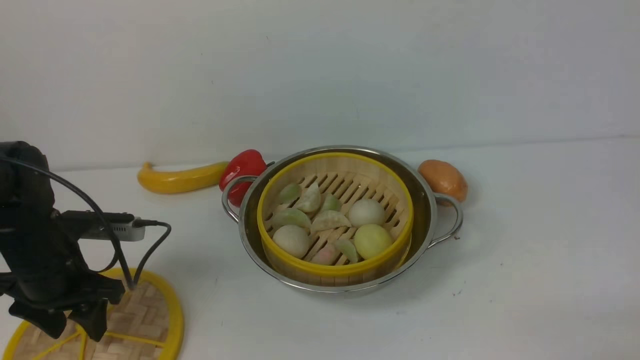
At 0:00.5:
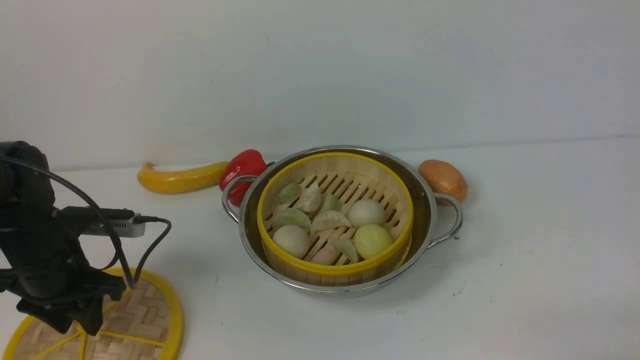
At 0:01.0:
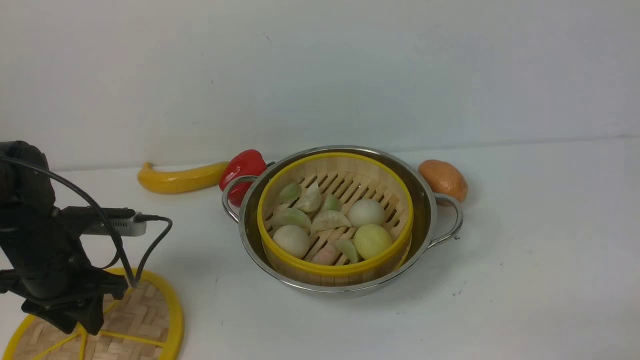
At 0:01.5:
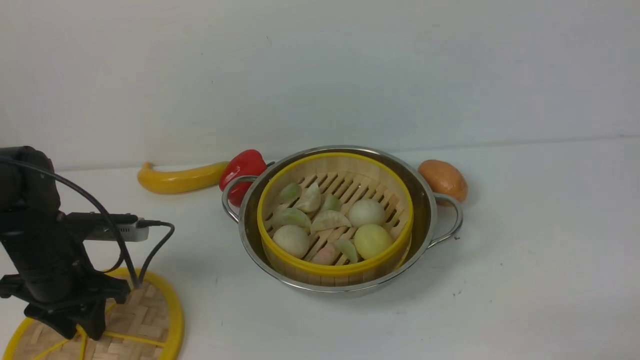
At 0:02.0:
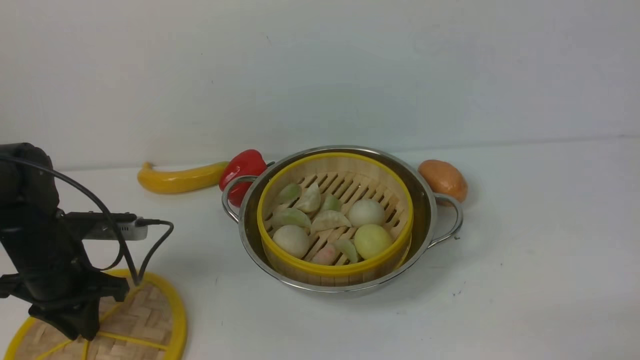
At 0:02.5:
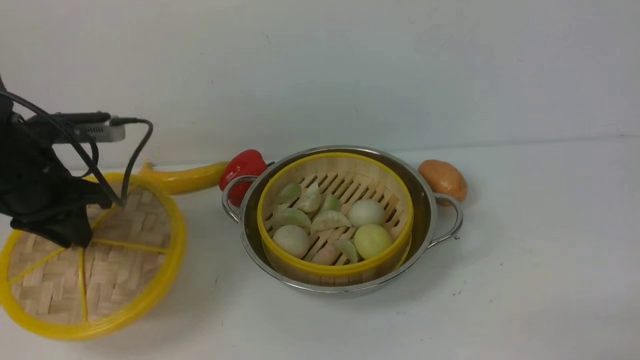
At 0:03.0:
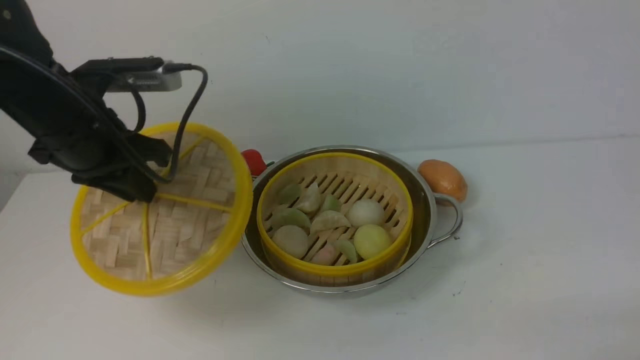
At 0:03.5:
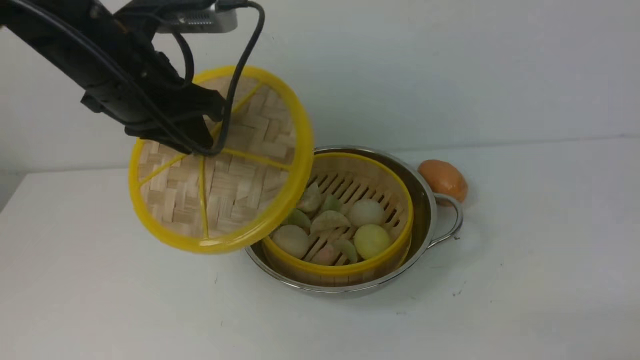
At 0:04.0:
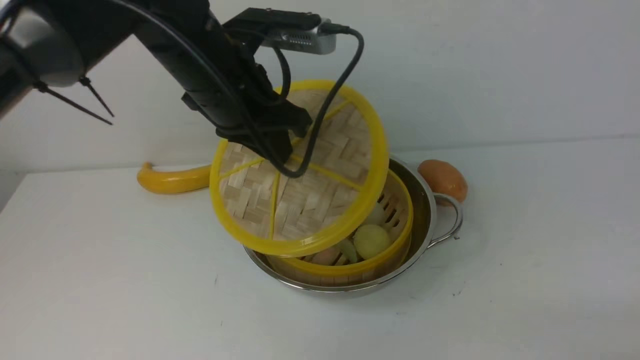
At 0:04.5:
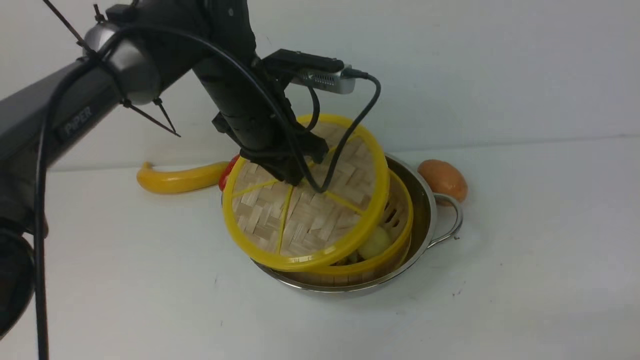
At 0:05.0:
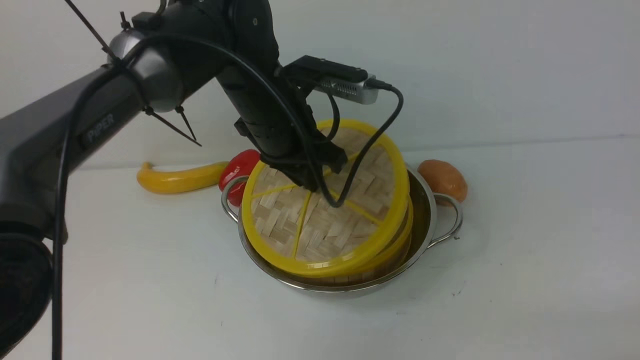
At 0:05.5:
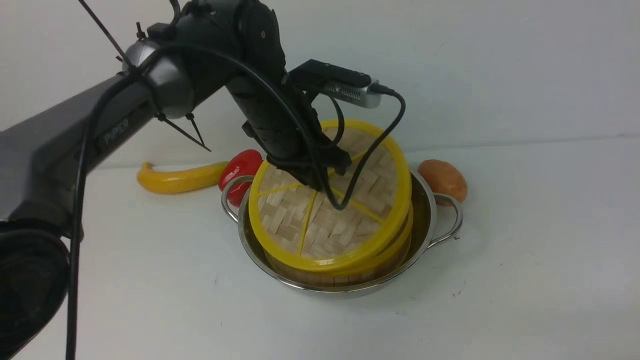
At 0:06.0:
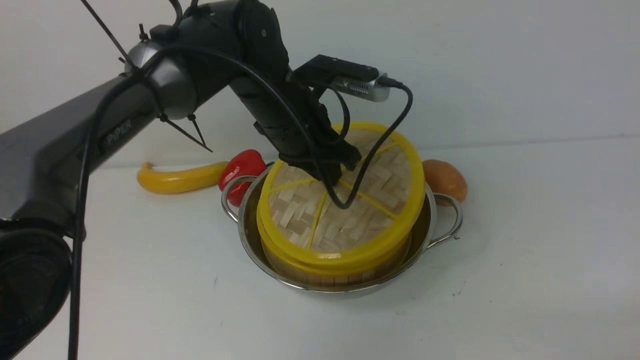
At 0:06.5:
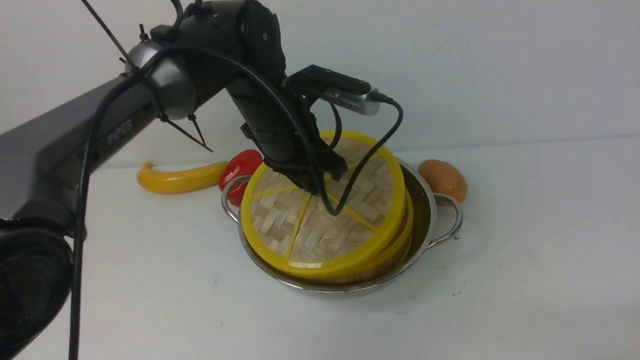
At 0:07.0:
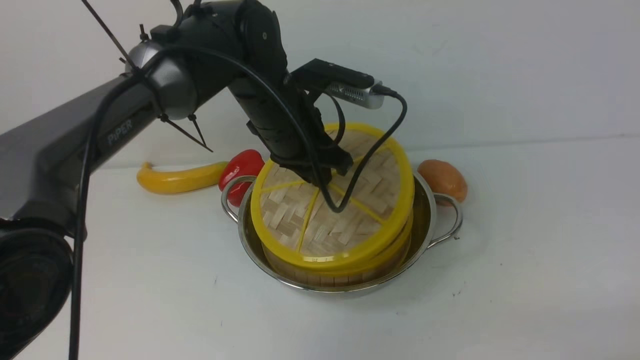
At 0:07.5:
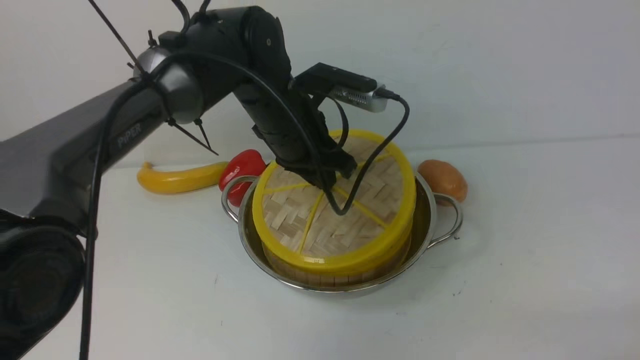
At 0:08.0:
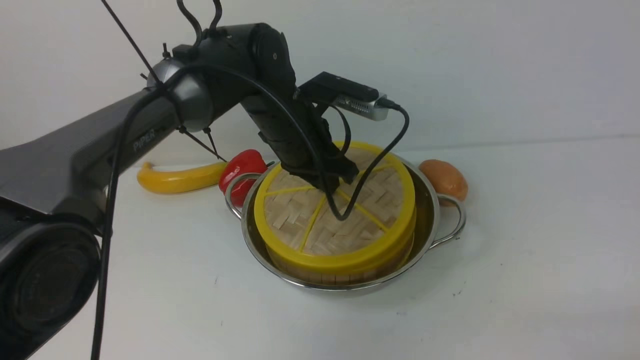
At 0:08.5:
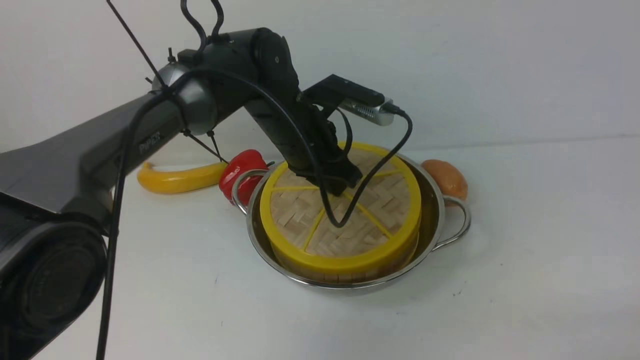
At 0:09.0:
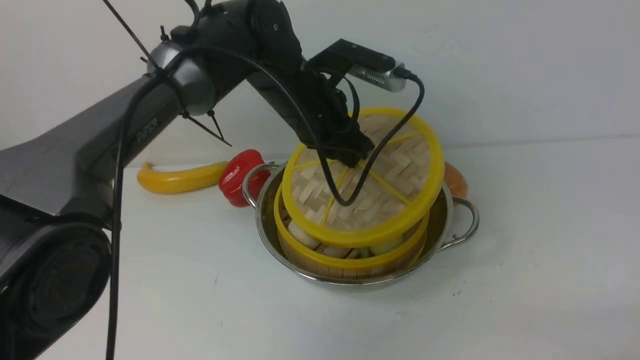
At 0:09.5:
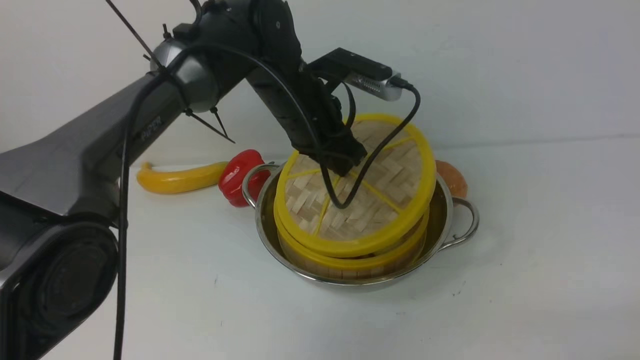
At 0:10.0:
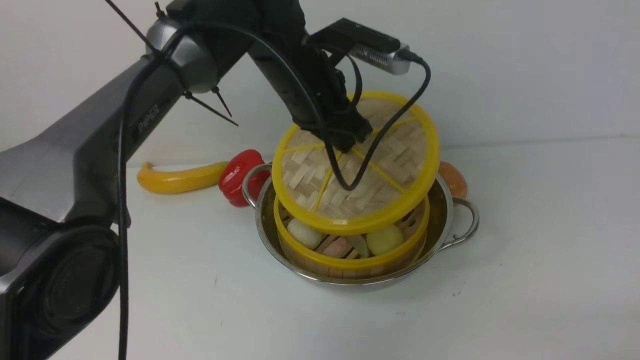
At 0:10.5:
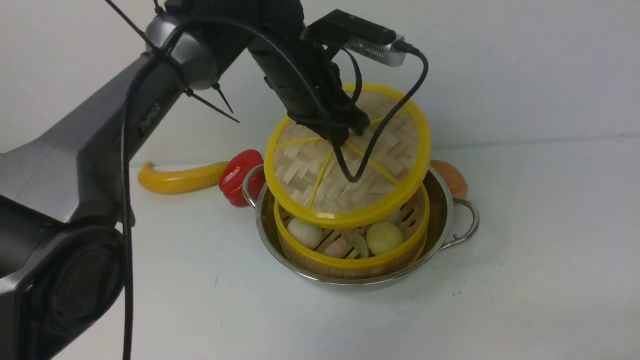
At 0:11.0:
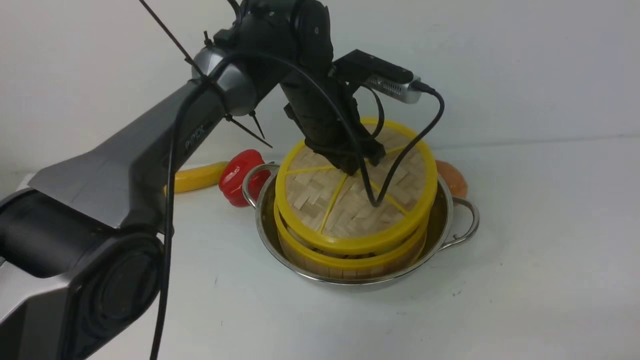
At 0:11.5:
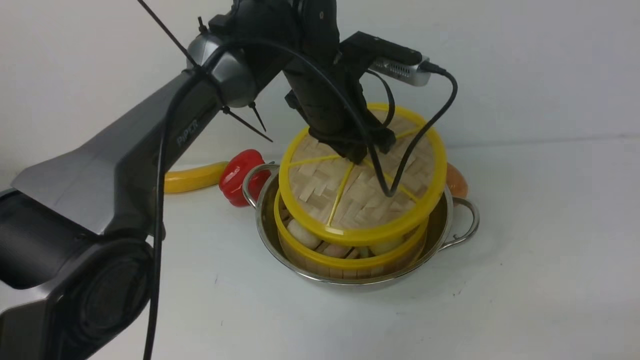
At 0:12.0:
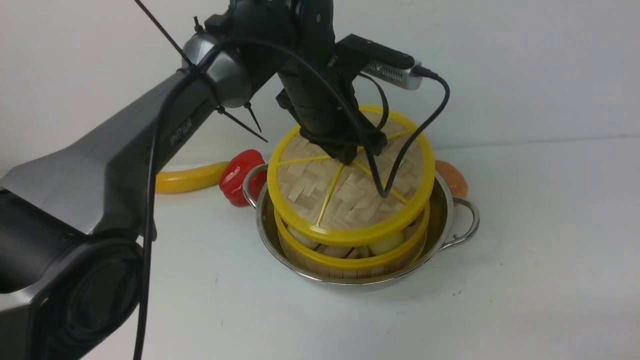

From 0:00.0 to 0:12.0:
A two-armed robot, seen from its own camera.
Task of the whole recording: place the steamer in the pot on the white table, and put the lid on the steamer.
Step, from 0:00.0 to 0:02.0: use the left arm to lift the lid of the steamer.
From 0:00.0 to 0:02.0: The left gripper closes up.
From 0:02.0 to 0:04.0: The left gripper is displaced to the right and upward by approximately 25 cm.
From 0:04.0 to 0:06.0: The left gripper goes some 5 cm downward.
From 0:06.0 to 0:08.0: The grippers make only small movements.
From 0:08.0 to 0:10.0: The left gripper goes roughly 5 cm upward.
From 0:10.0 to 0:12.0: There are only small adjustments of the grippers.

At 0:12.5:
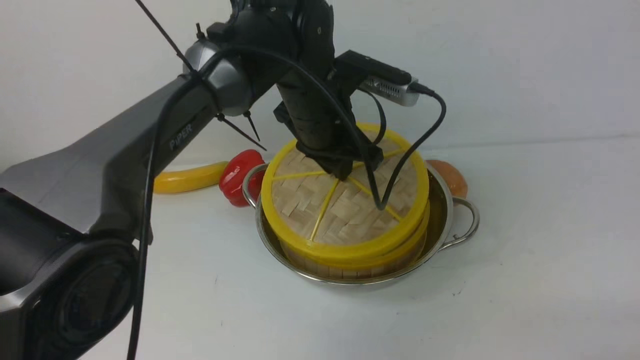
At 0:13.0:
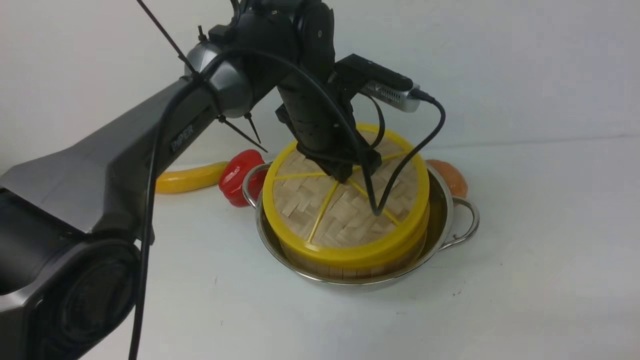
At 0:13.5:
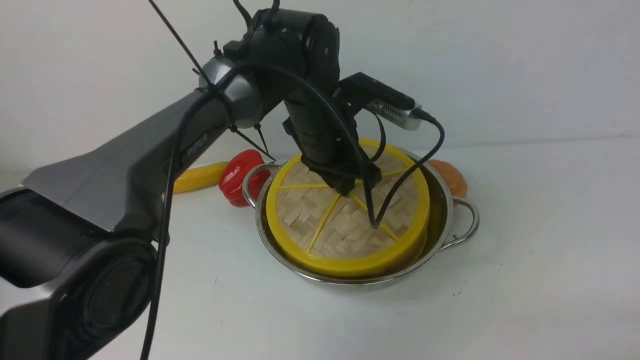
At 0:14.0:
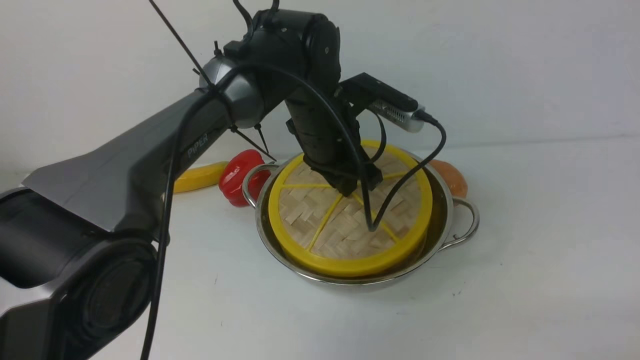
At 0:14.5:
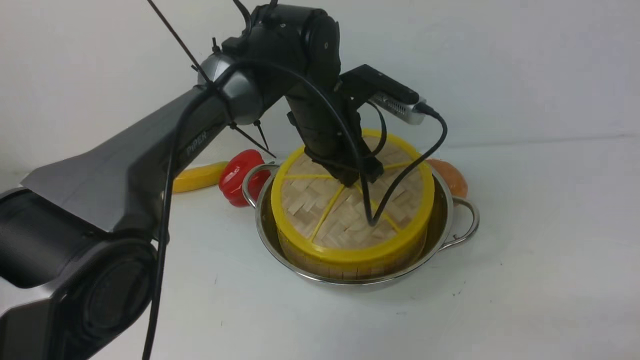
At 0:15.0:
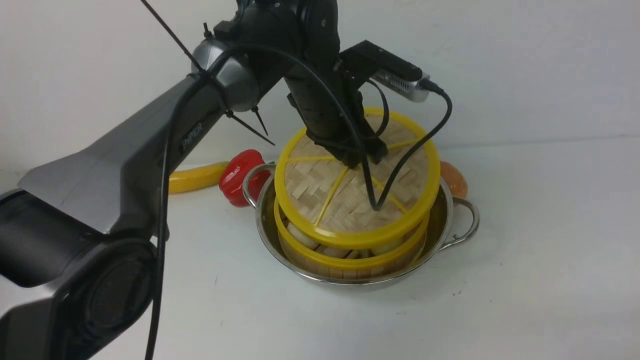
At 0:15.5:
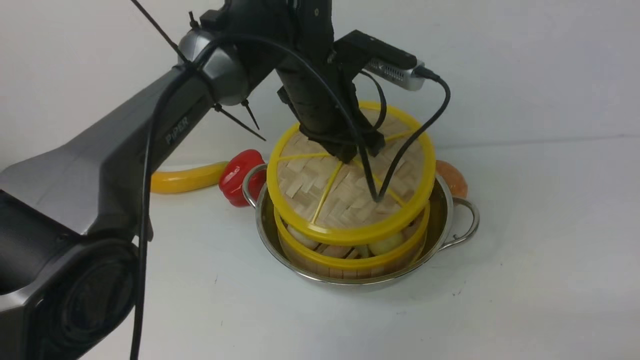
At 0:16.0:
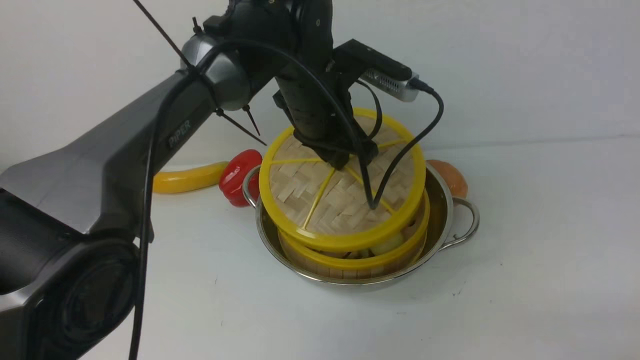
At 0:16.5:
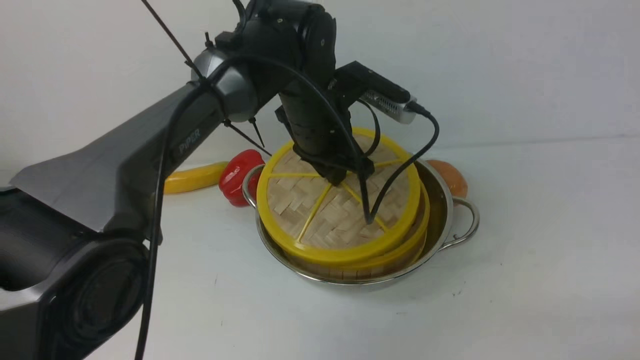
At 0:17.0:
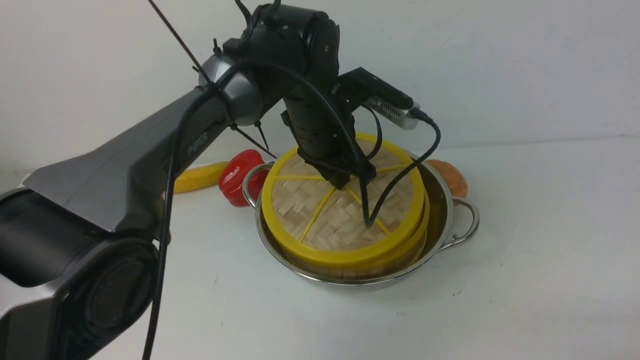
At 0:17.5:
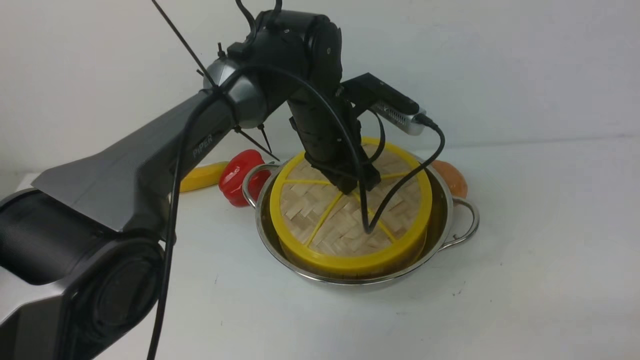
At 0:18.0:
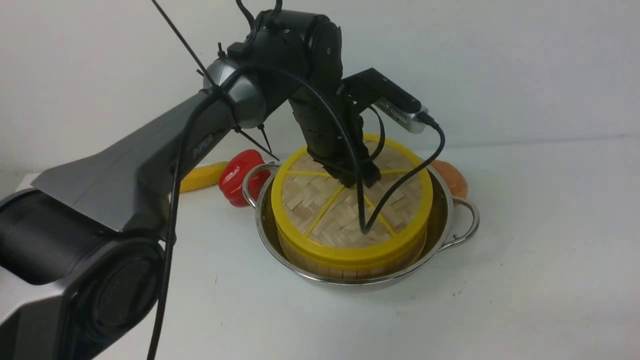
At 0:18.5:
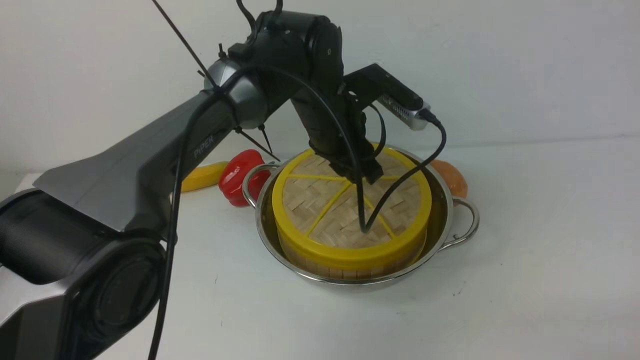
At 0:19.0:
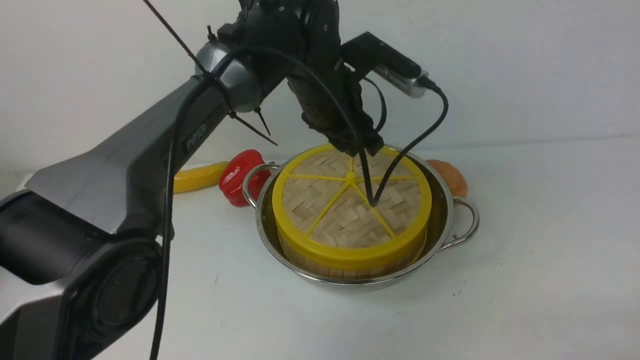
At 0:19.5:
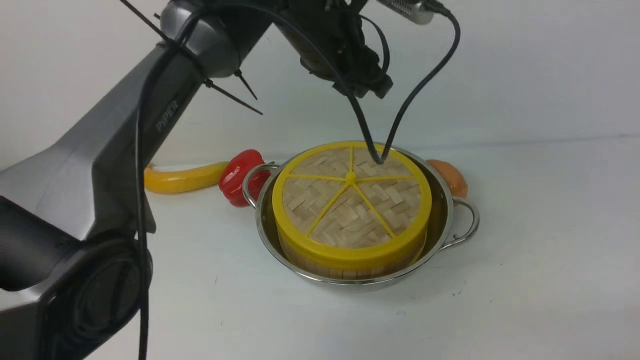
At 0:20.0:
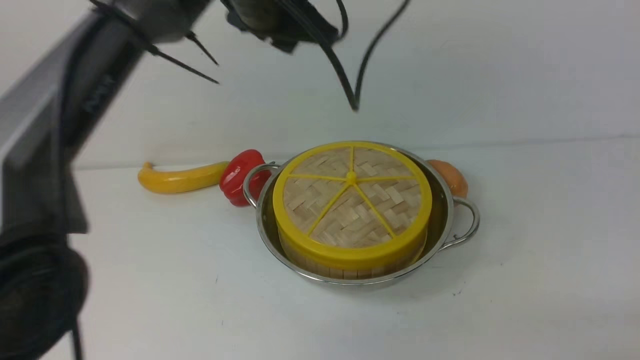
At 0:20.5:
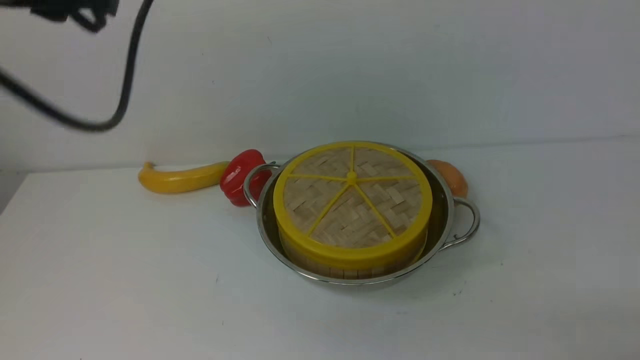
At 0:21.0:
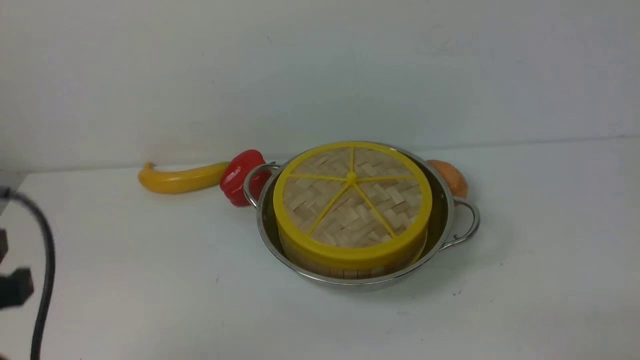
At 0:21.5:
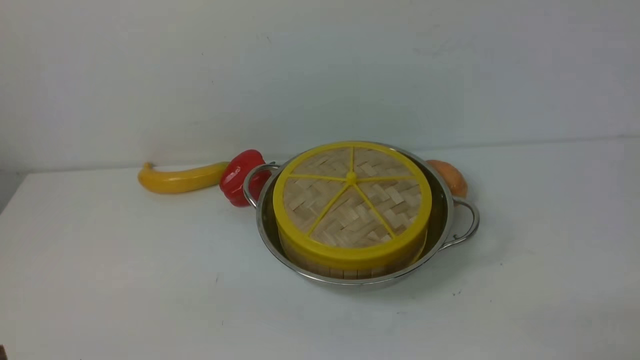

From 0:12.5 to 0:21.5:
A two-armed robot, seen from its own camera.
Task of the whole recording: place the steamer in the pot on the white table, and put the lid on the steamer.
Step, from 0:12.5 to 0:18.5: use the left arm to place the steamer lid on the steamer.
From 0:12.5 to 0:17.0: There are only small adjustments of the grippers.
From 0:17.0 to 0:19.5: The left gripper moves upward, some 10 cm, and opens its fingers.
From 0:19.5 to 0:21.5: The left gripper heads backward and to the left, covering some 40 cm.
